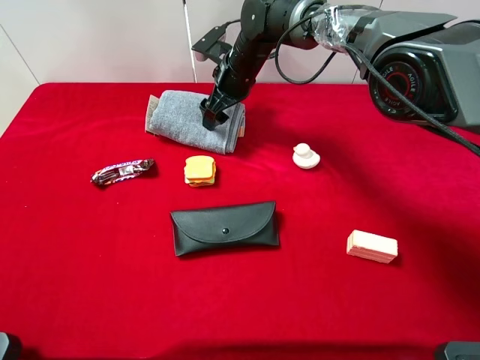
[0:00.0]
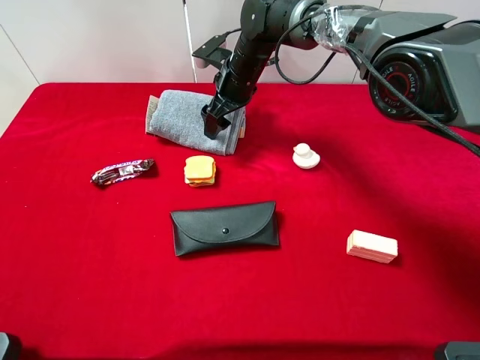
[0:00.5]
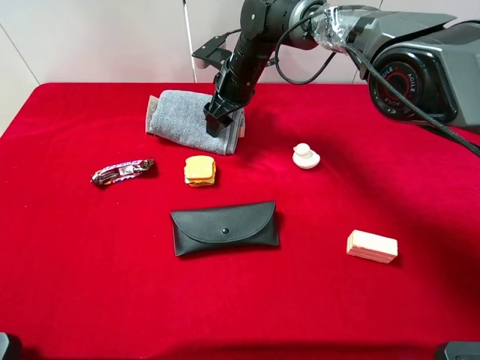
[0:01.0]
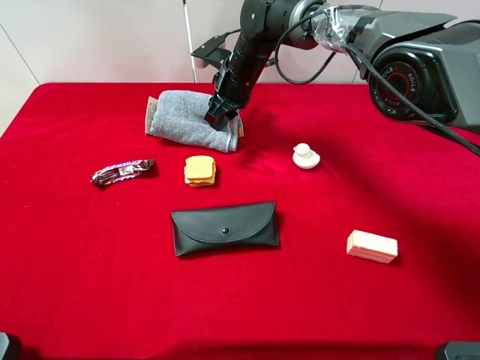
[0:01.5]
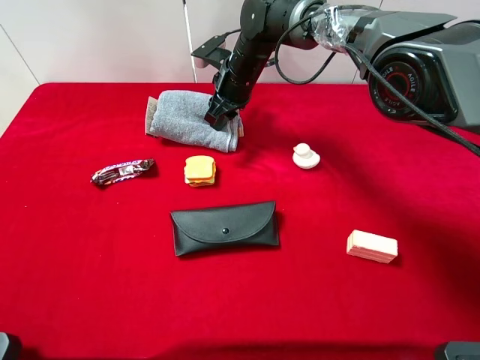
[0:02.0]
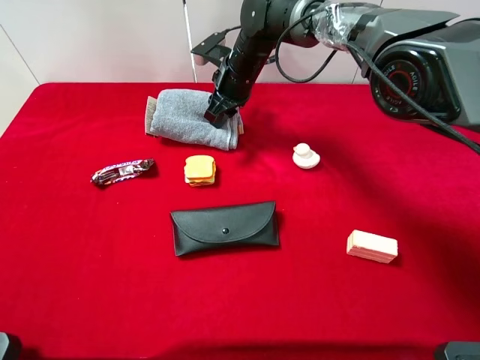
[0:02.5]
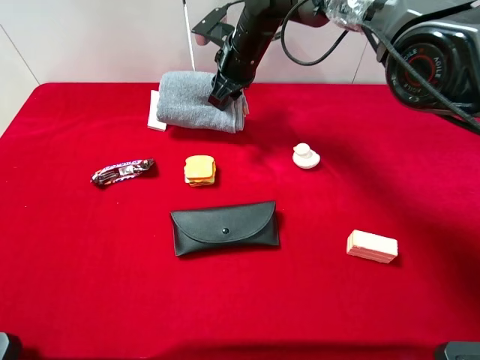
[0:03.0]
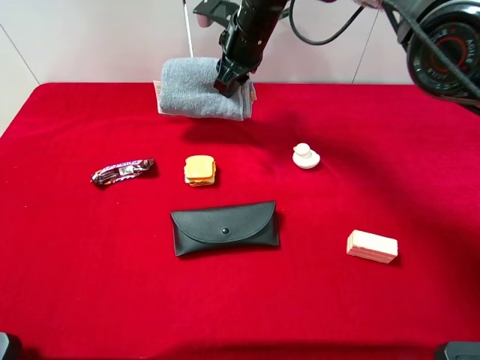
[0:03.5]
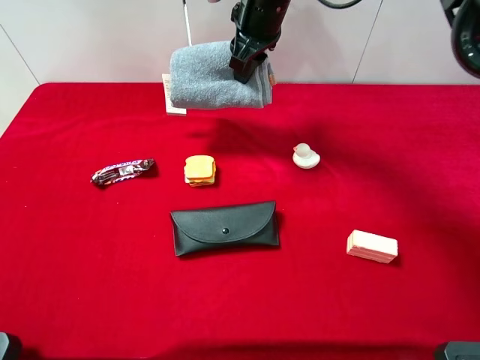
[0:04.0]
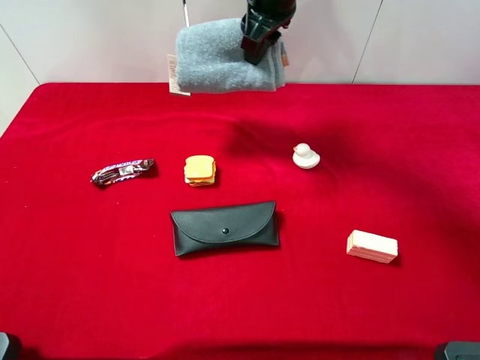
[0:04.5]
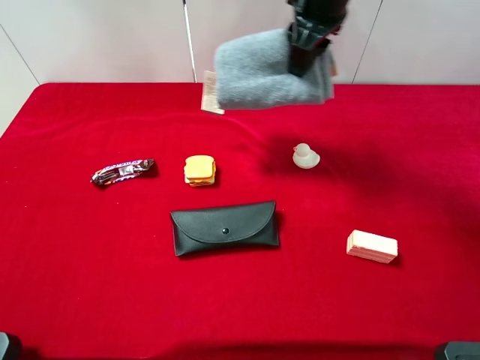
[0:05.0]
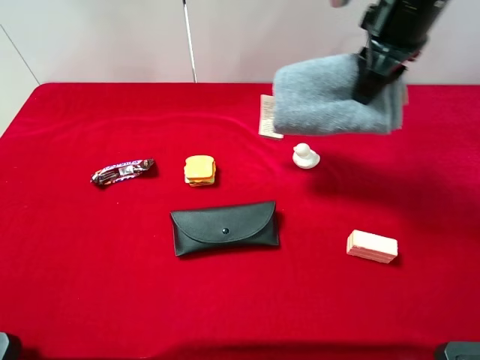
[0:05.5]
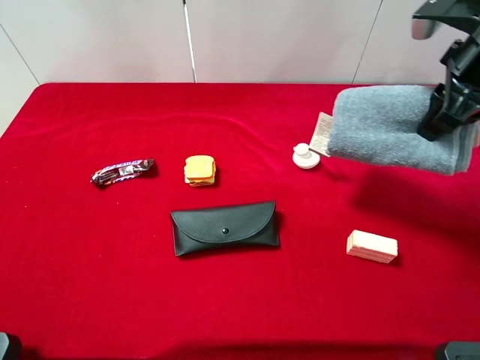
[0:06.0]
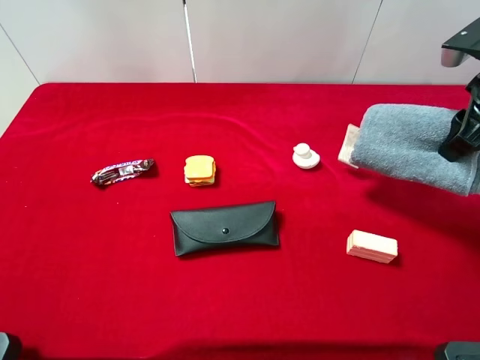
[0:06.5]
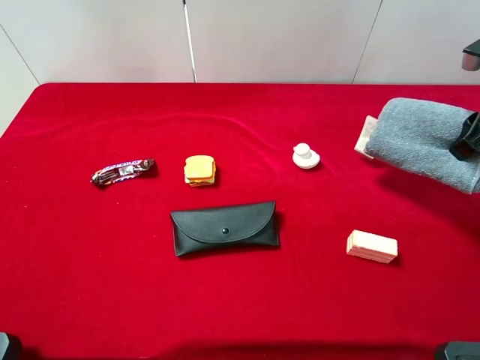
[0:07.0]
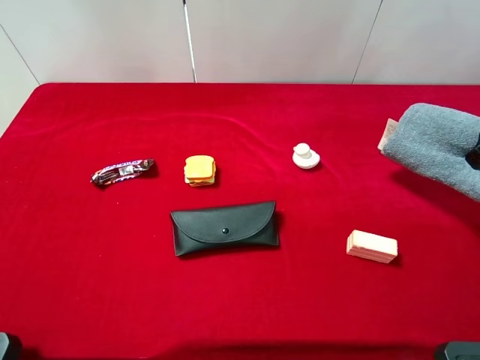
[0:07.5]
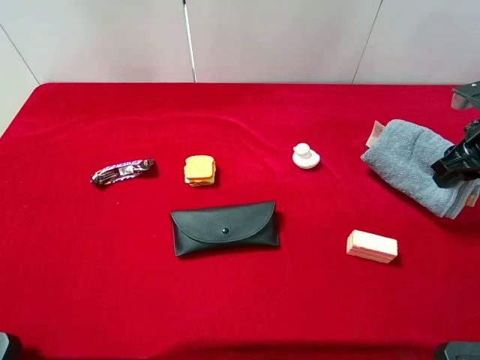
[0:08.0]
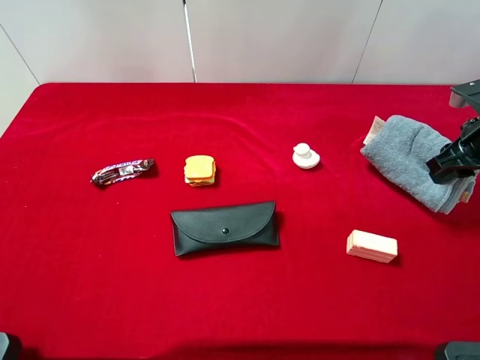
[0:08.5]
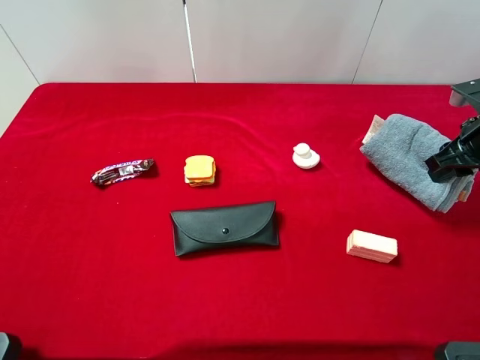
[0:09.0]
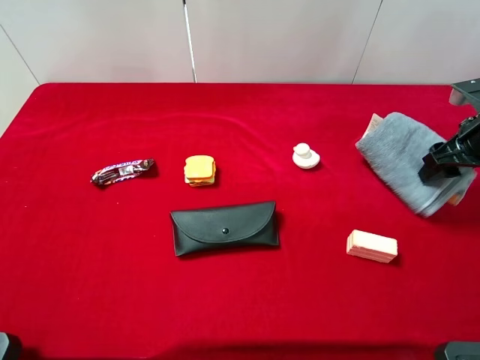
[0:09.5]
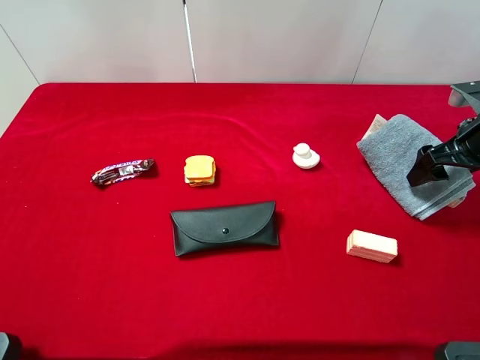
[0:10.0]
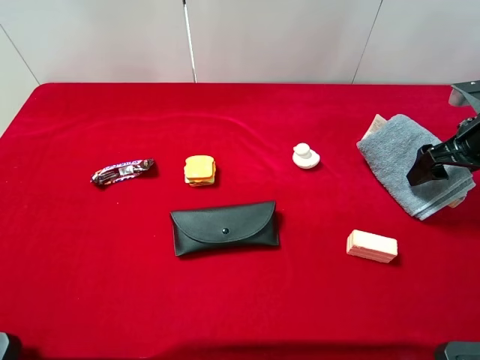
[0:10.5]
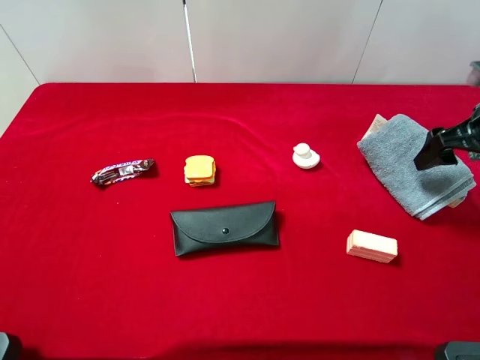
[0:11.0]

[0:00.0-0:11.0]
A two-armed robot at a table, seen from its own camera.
Task of the whole recording: the gripper move the object.
0:00.0 to 0:02.0: The right gripper closes its fingers.
0:02.0 to 0:03.5: The right gripper goes about 10 cm upward.
0:03.5 to 0:05.5: The right gripper moves to the right, backward and upward, roughly 20 cm.
0:05.5 to 0:07.5: The right gripper is displaced to the right and downward by roughly 20 cm.
0:07.5 to 0:09.0: The right gripper goes roughly 5 cm downward.
0:09.0 to 0:11.0: The right gripper opens up.

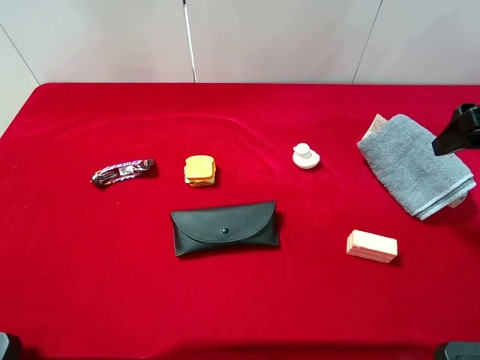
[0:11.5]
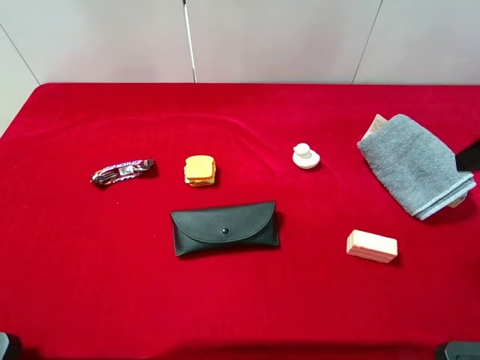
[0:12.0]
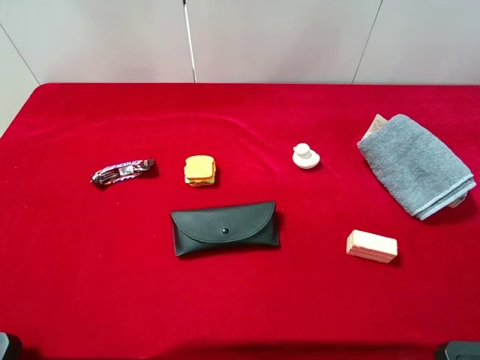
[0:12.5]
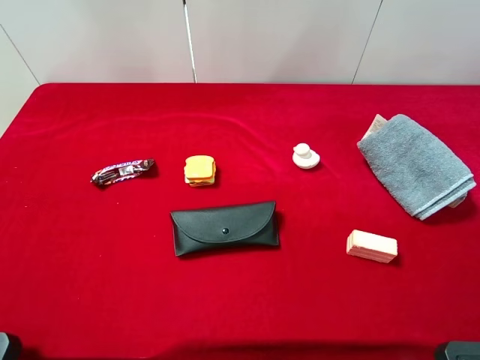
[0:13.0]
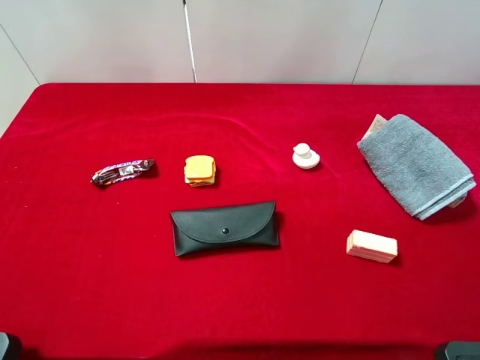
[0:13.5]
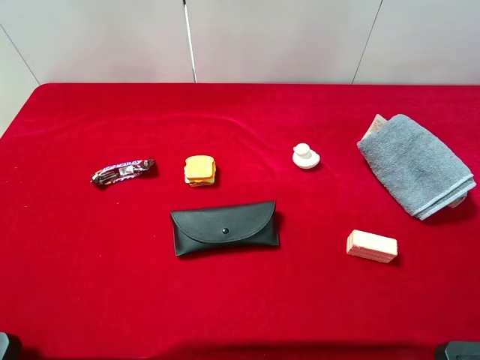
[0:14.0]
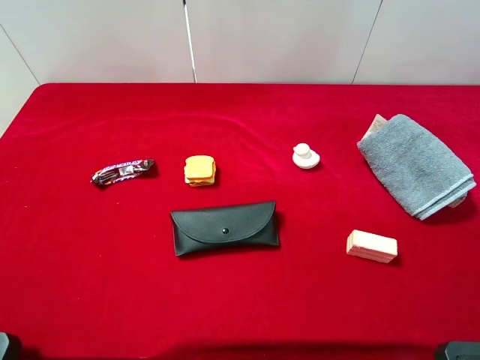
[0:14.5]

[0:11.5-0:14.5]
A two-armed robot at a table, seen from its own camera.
Task of the whole recording: the gripper move the object.
0:11.5 to 0:13.0: The right gripper travels backward by some 20 cm.

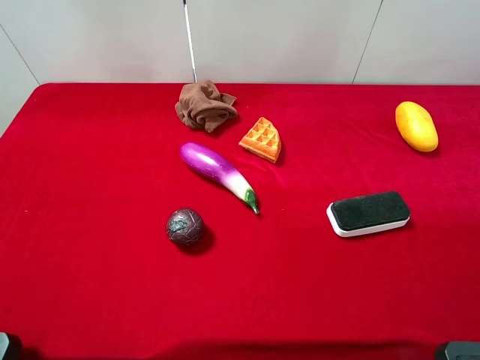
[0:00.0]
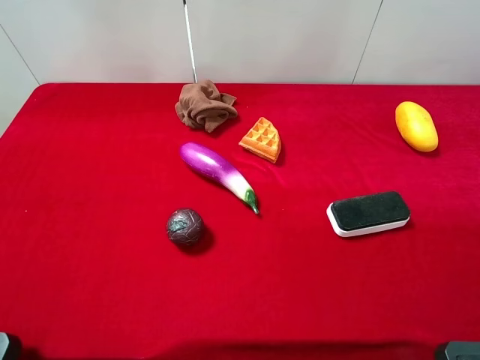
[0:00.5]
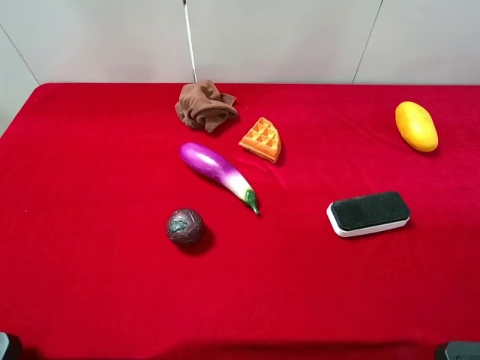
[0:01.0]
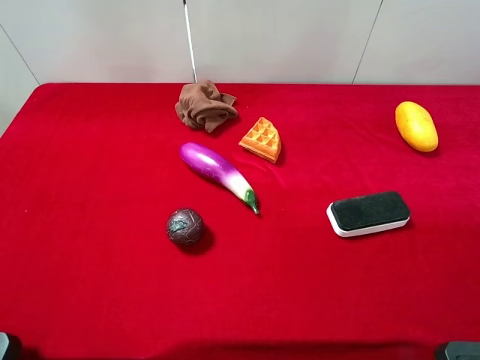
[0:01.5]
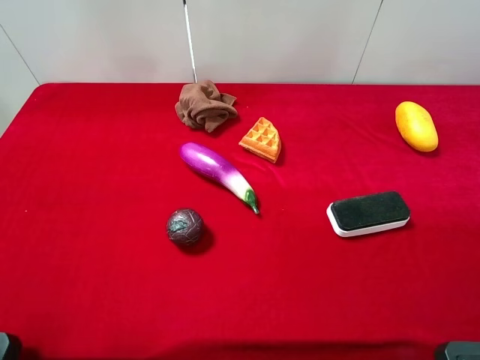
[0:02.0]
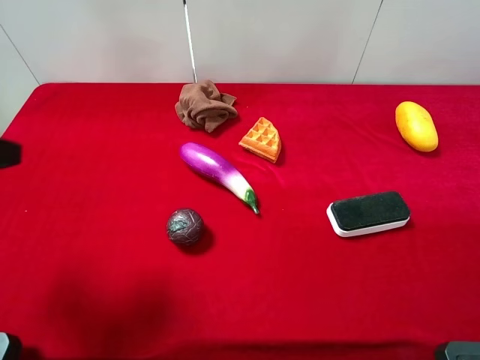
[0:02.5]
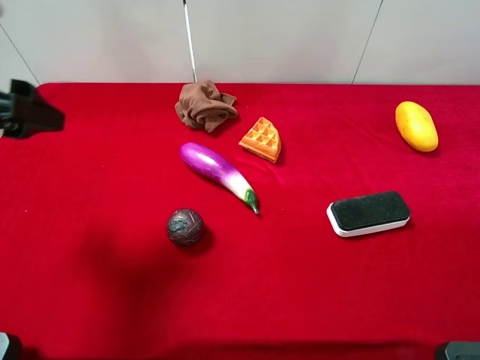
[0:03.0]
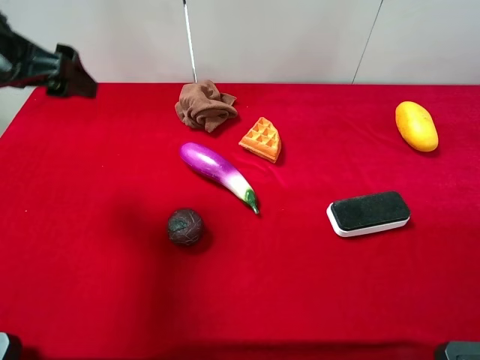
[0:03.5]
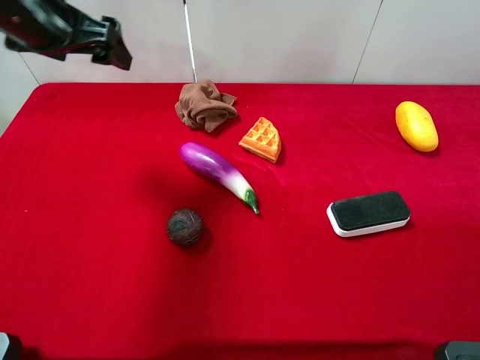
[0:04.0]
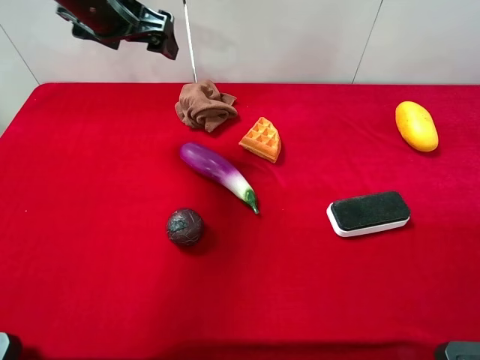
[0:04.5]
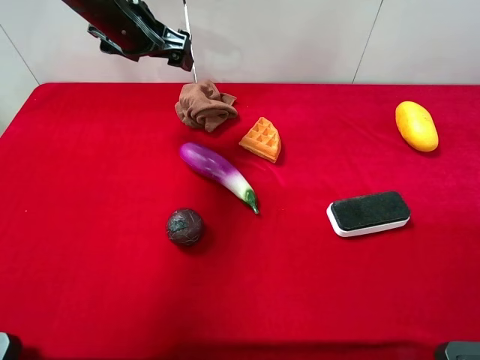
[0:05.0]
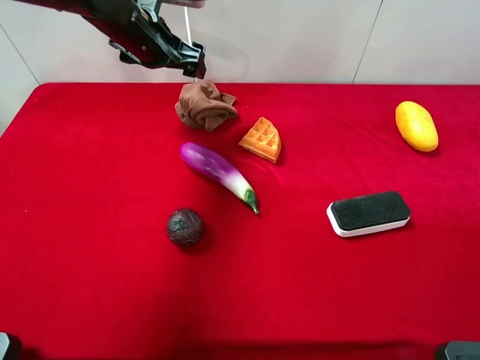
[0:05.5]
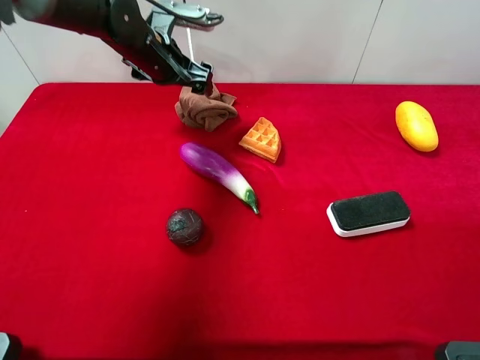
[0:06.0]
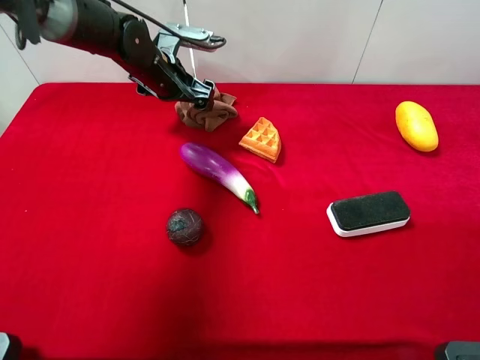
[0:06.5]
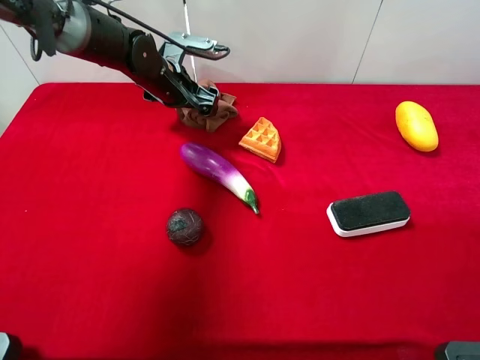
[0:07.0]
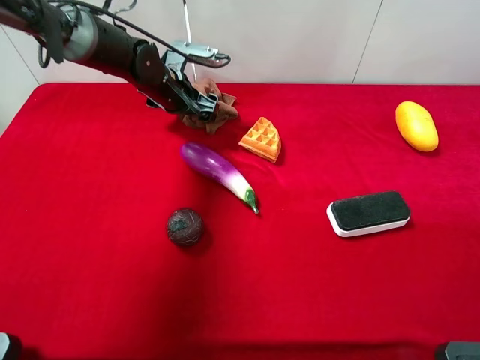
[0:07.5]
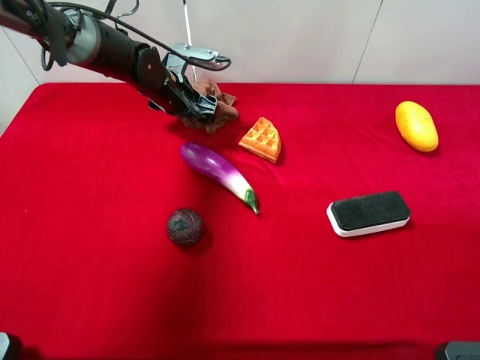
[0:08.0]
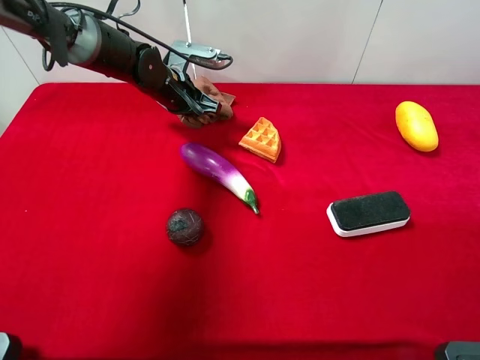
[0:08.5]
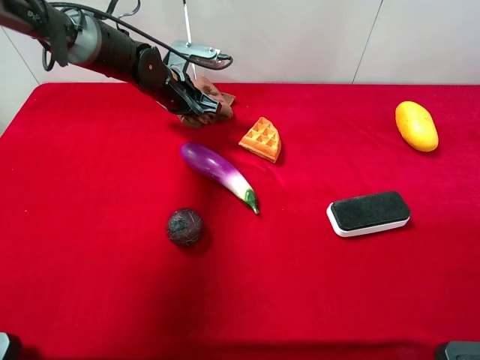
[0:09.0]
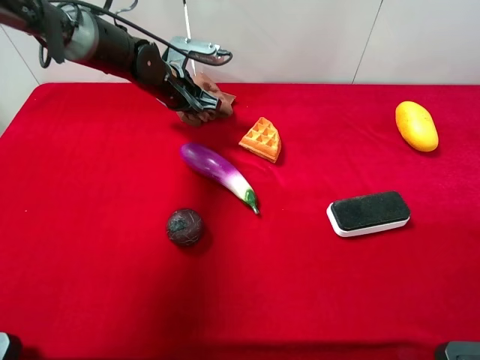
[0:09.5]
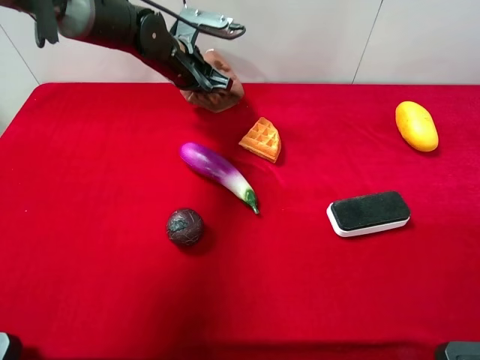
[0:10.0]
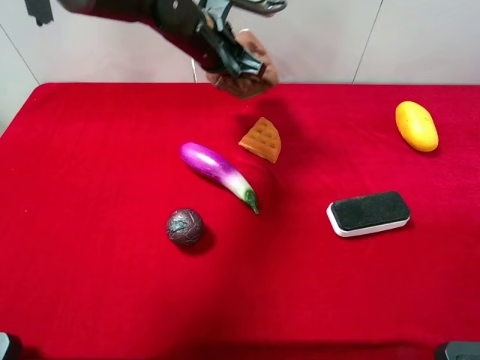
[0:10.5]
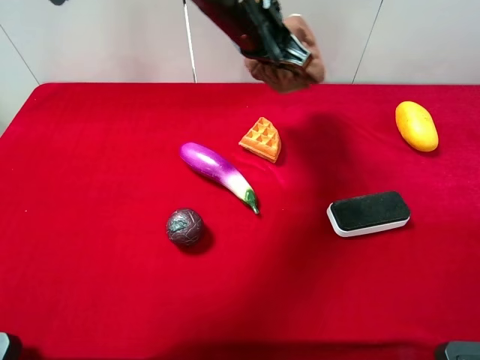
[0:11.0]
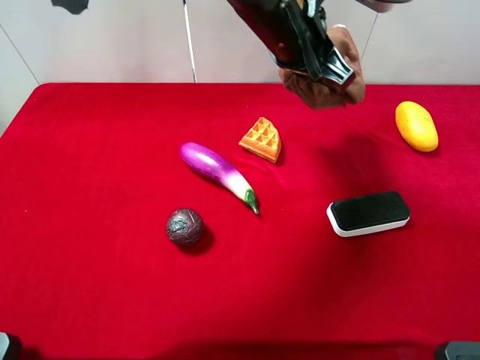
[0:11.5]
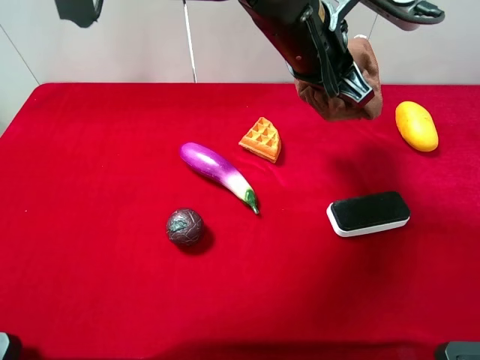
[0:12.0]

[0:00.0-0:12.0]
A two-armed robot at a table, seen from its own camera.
Task of the whole recording: the gripper move the object.
Step, 0:00.0 to 0:08.5: Grasp the brown towel with the left gripper.
0:02.0 to 0:04.0: The left gripper goes roughly 25 cm forward.
0:04.0 to 0:06.0: The left gripper shifts roughly 20 cm downward, forward and to the right.
0:06.0 to 0:08.0: The left gripper travels downward by about 5 cm.
0:08.0 to 0:10.0: The left gripper goes about 5 cm upward, and closes up.
0:10.0 to 0:12.0: The left gripper goes roughly 25 cm to the right, backward and upward.
